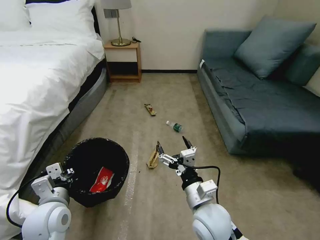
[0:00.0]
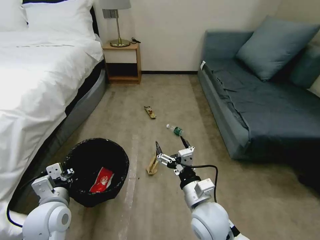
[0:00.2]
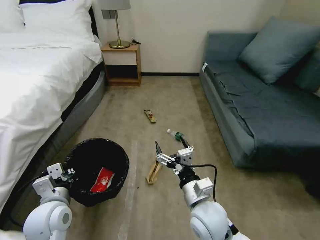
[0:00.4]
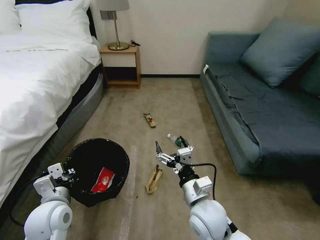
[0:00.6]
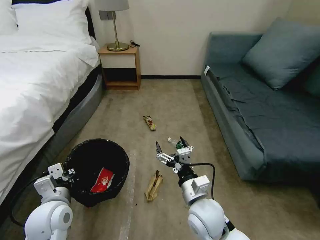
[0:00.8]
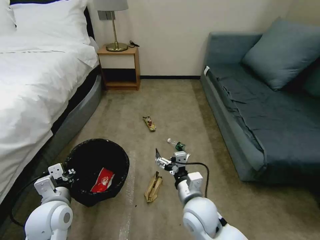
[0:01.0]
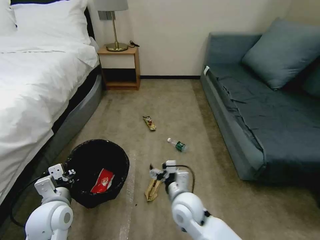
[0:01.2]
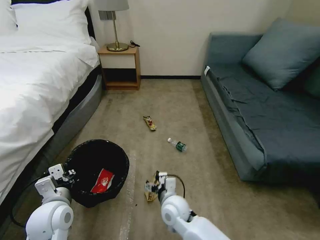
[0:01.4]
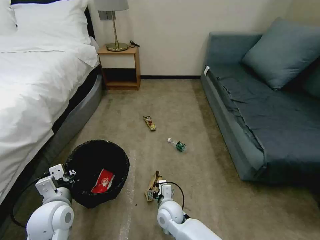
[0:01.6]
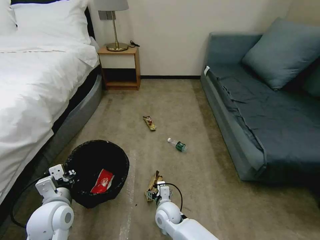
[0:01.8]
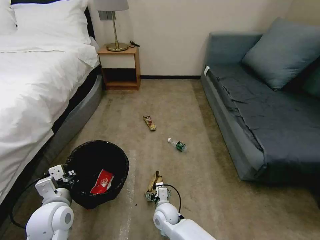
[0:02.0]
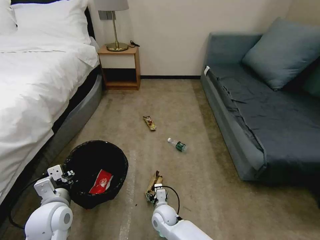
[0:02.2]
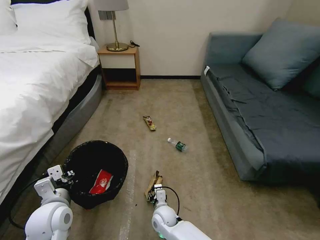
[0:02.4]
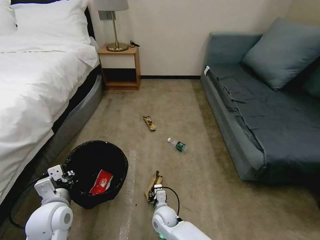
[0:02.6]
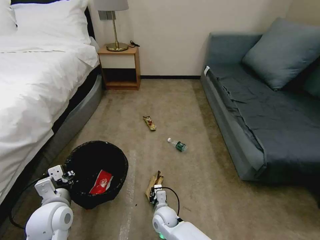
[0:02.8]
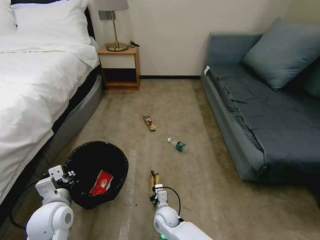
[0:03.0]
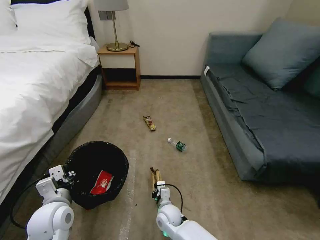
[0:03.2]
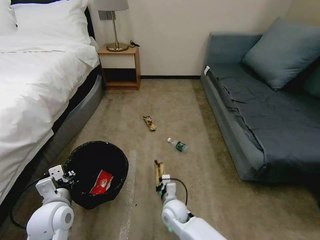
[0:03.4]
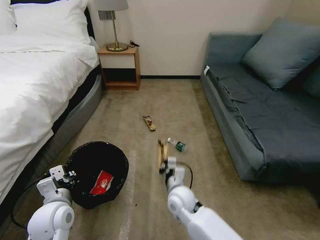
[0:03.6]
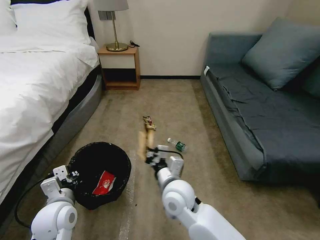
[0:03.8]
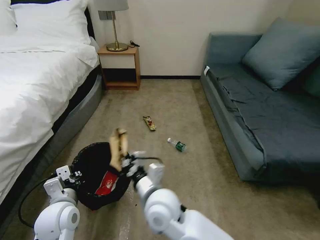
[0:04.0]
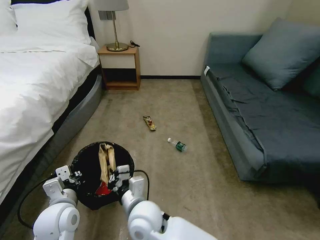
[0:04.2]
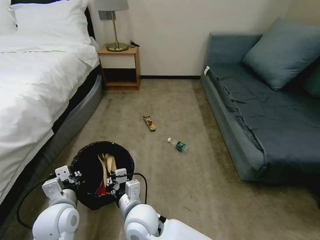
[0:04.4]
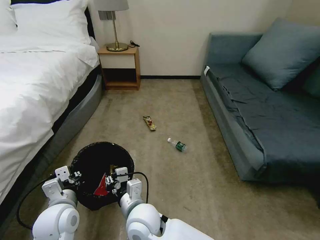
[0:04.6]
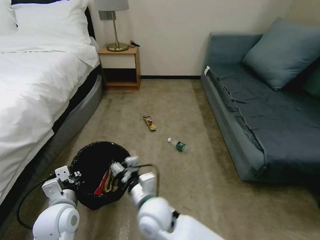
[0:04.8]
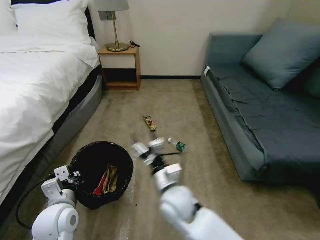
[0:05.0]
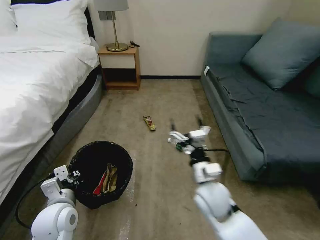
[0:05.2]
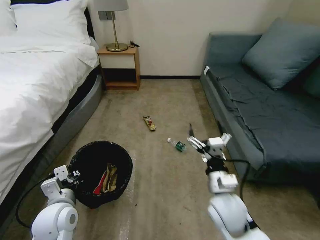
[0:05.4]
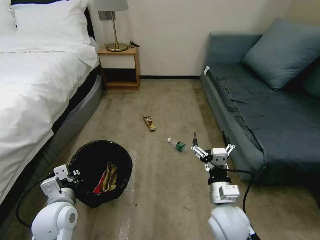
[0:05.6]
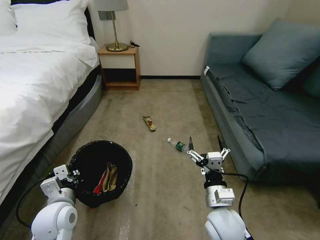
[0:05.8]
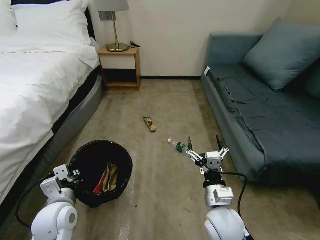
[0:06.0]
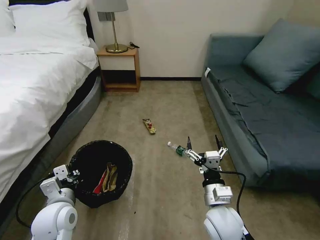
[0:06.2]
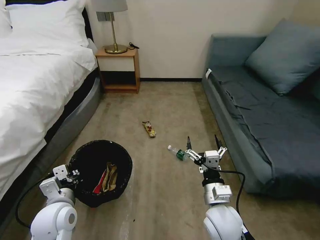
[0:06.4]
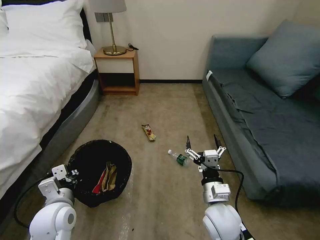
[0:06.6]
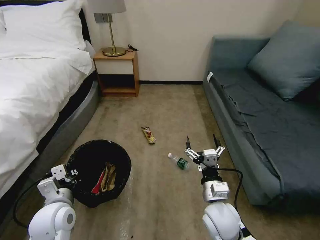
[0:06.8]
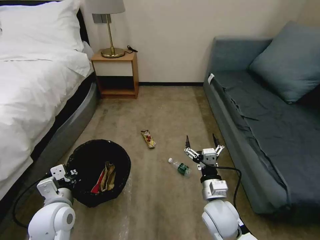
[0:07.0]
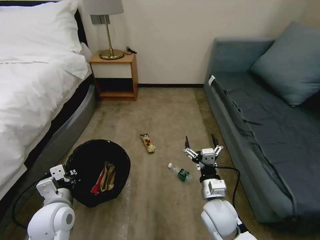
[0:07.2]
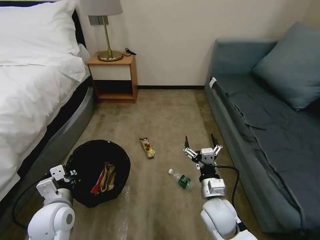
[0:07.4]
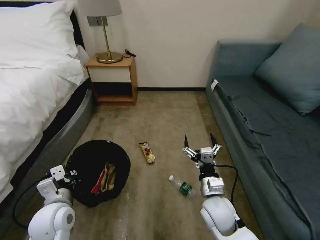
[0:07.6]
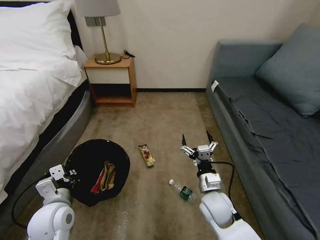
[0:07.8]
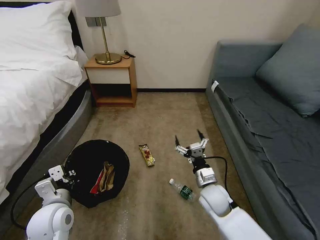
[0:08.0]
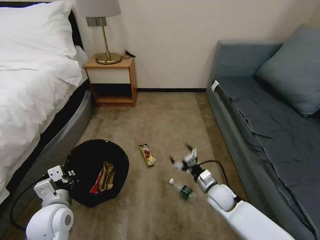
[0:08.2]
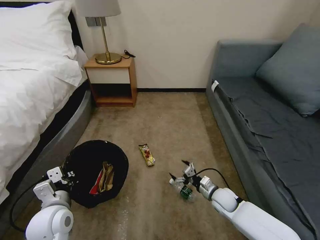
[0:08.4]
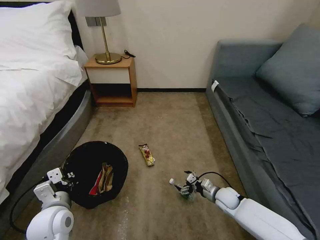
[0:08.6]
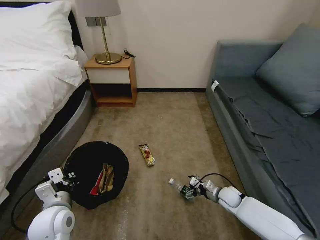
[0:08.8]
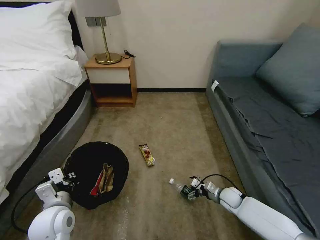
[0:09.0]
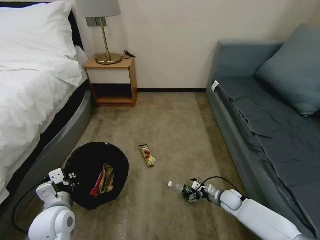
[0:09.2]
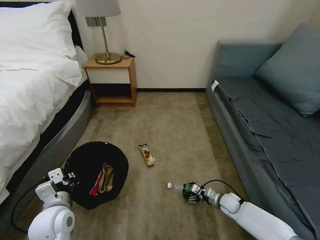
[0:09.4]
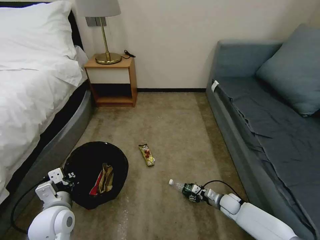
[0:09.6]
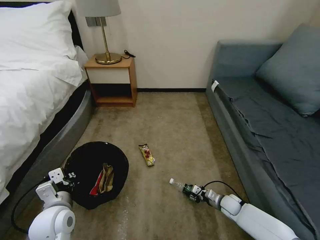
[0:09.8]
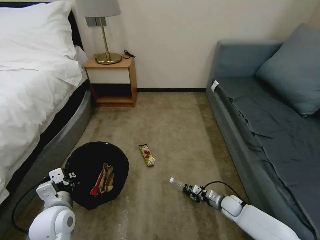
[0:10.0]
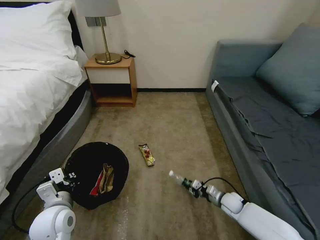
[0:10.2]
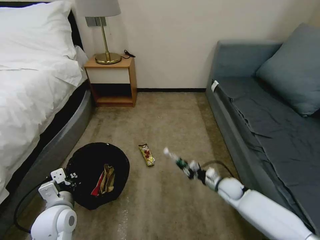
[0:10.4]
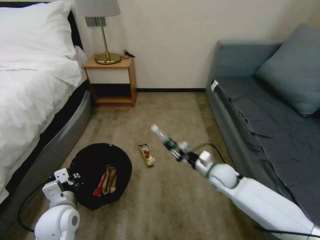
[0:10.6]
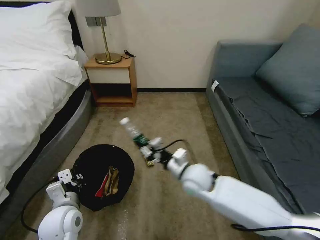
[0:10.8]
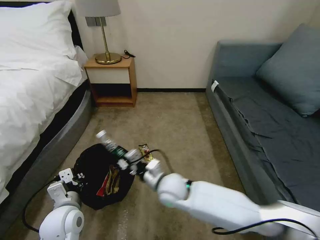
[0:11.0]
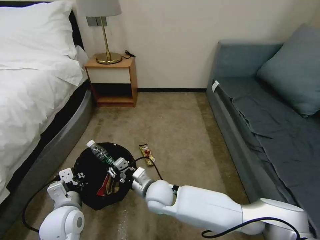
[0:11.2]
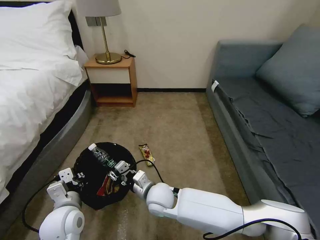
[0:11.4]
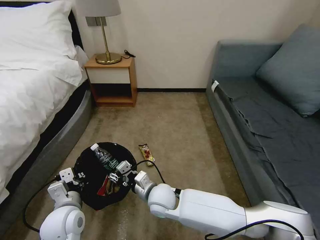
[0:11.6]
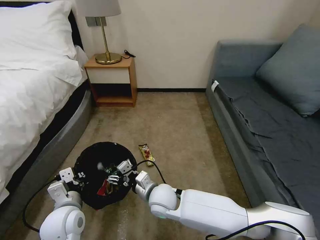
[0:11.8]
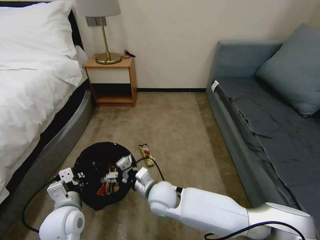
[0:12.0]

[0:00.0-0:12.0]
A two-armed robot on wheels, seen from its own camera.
Task of the whole recording: Pick up the trash bin, then pick up the garbage on the floor and place it into the trash bin.
0:00.0 to 0:01.6: The right gripper moves downward and to the left, some 20 cm.
0:01.6 to 0:03.0: The right gripper is displaced downward by some 5 cm, and closes.
0:03.0 to 0:04.4: The right gripper travels upward and to the left by roughly 20 cm.
0:04.4 to 0:06.0: The right gripper is displaced to the right by approximately 25 cm, and opens its fingers.
0:07.6 to 0:09.0: The right gripper shifts about 25 cm downward, to the right and forward.
0:09.0 to 0:10.4: The right gripper moves upward, about 5 cm, and closes.
0:10.4 to 0:12.0: The right gripper travels to the left and upward by some 30 cm, and opens up.

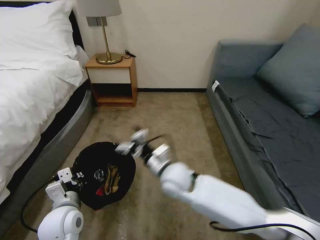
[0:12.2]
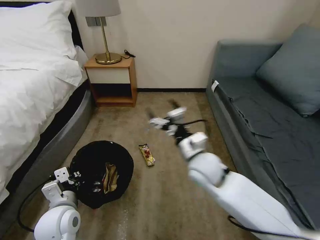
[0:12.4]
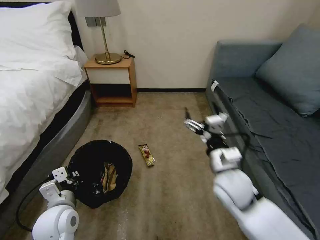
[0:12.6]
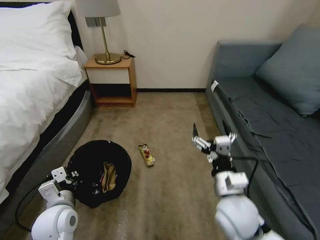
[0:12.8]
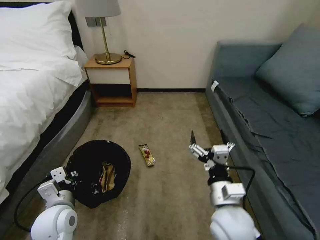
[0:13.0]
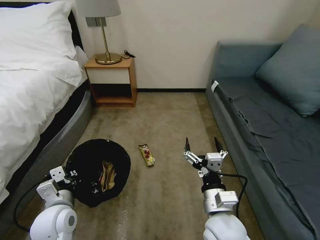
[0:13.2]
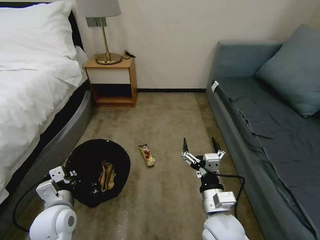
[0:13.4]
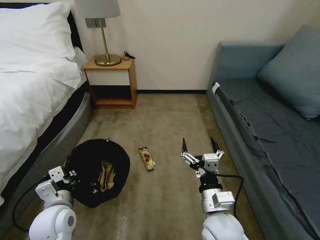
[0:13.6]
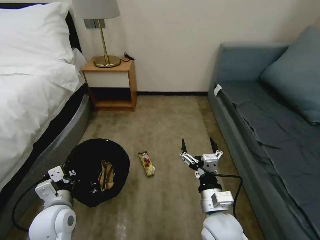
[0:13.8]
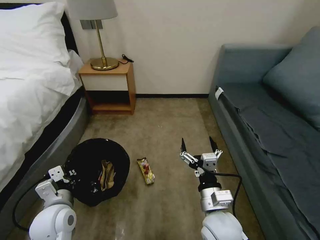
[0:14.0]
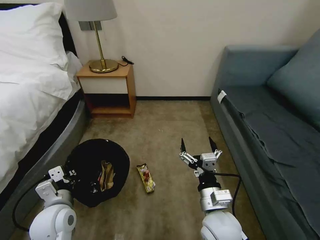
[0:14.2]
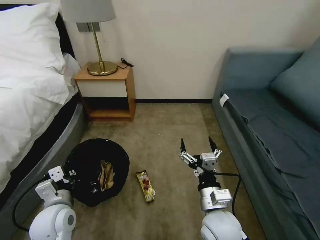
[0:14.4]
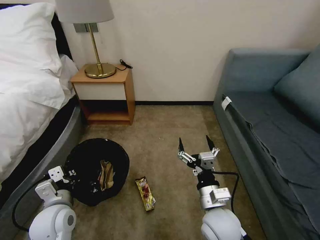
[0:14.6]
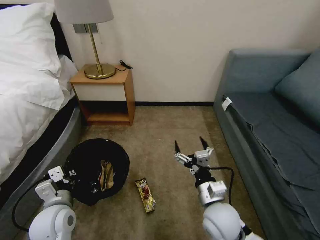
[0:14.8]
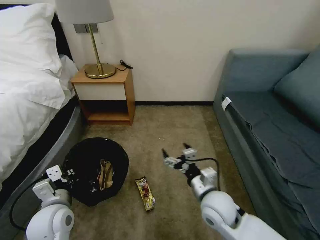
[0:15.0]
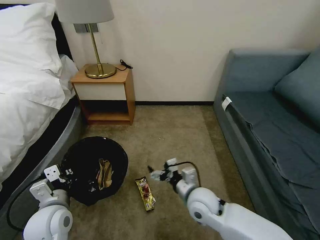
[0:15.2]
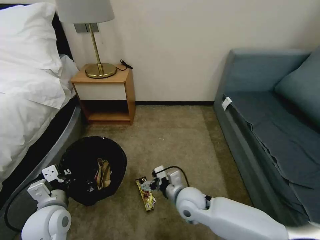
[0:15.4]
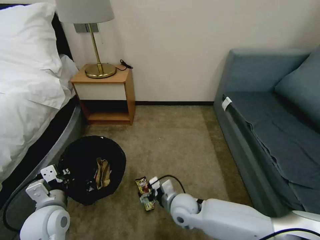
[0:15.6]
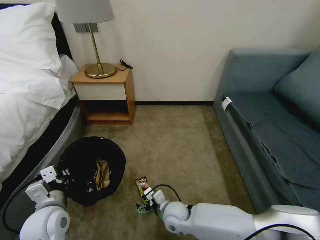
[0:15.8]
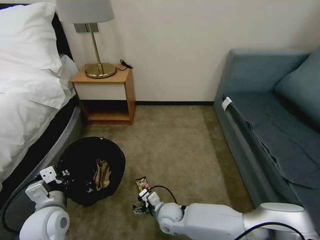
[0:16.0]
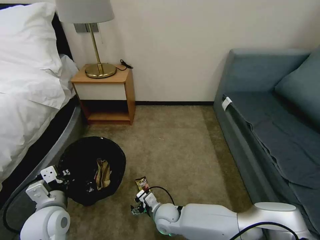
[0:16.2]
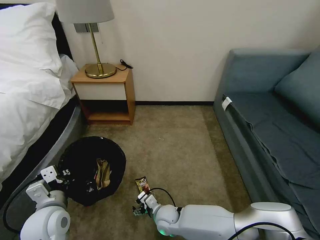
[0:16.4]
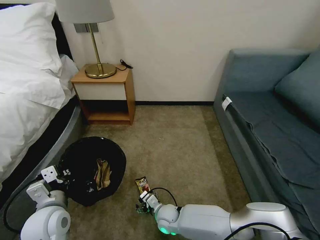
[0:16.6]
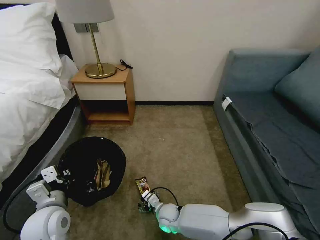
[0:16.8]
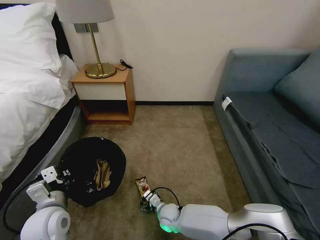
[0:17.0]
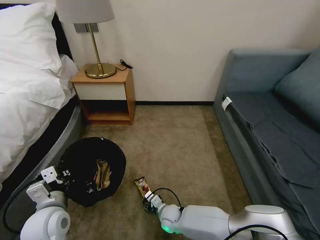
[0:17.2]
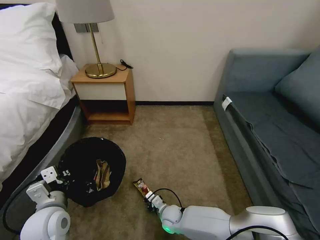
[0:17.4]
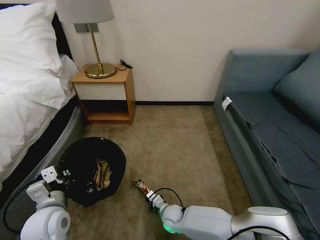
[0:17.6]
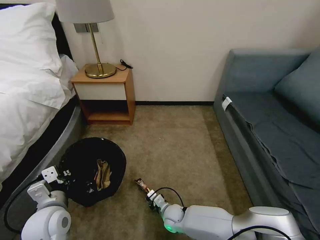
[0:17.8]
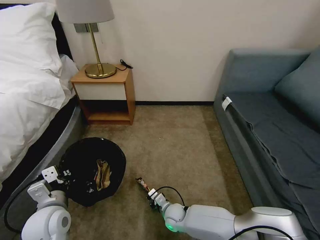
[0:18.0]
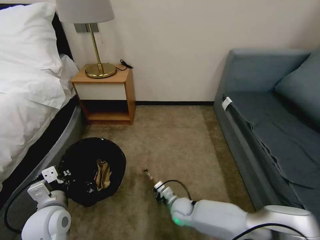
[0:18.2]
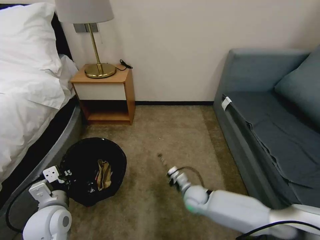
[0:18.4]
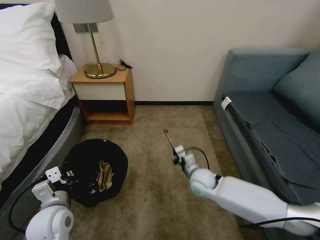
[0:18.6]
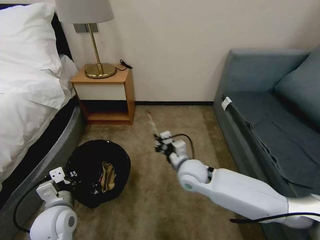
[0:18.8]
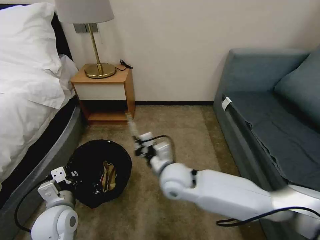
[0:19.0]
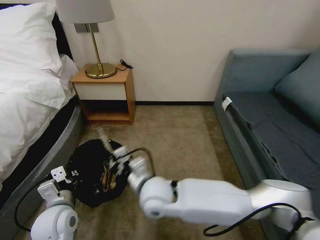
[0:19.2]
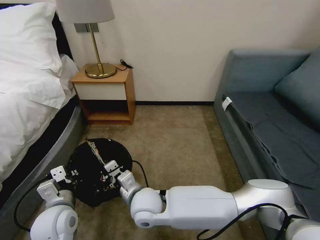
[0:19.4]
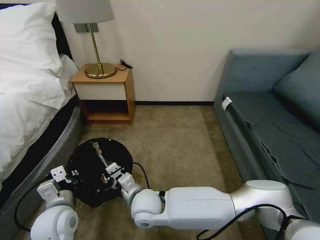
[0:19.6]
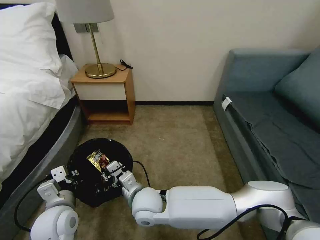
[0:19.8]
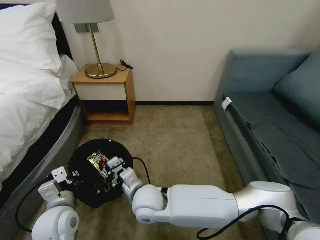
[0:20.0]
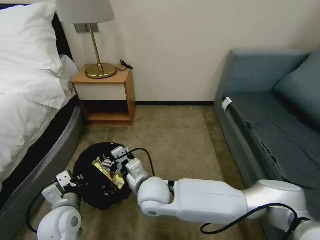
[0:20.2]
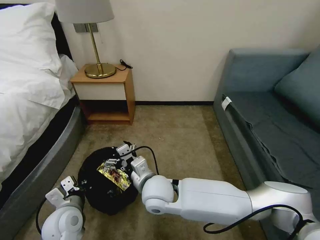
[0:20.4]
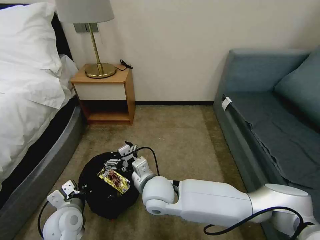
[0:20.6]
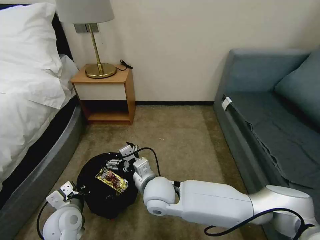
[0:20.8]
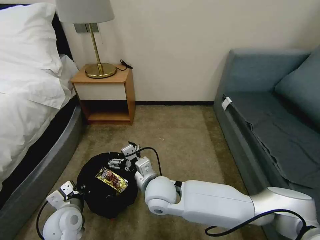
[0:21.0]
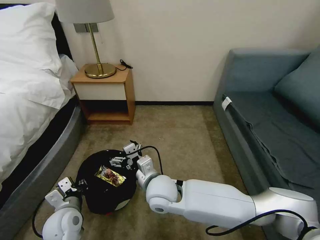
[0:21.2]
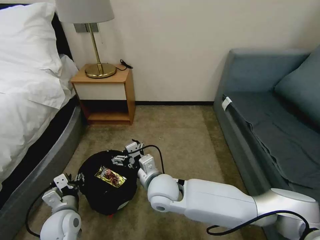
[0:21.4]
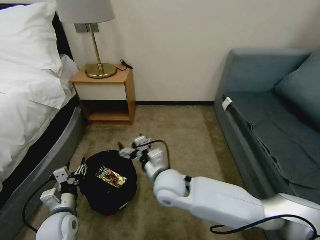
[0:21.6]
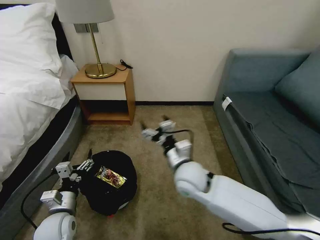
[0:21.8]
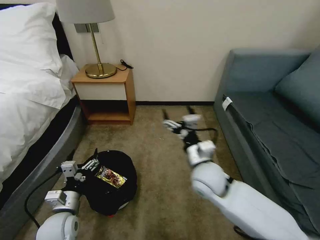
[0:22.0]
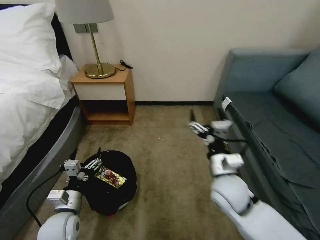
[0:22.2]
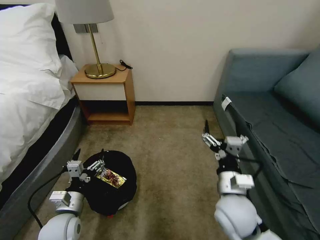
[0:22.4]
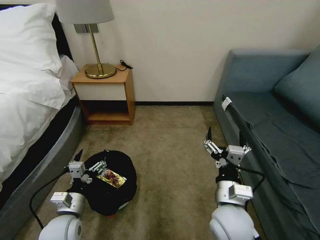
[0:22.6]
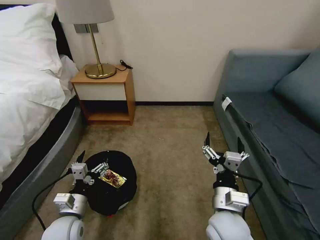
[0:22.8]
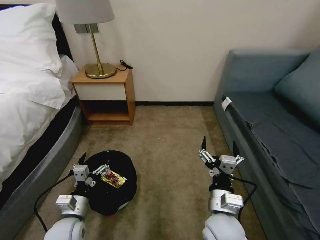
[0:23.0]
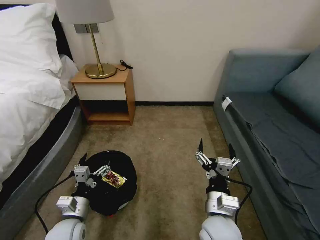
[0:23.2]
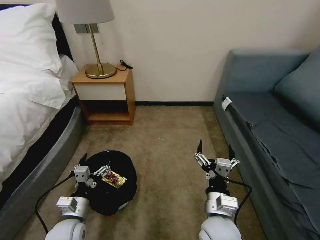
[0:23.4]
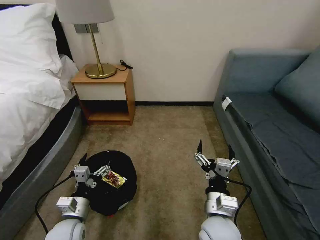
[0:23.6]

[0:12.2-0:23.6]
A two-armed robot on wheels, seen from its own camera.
Task of the whole recording: Pick up the trash bin, then pick up the garbage on the floor and place it into the trash bin.
0:12.2 to 0:13.6: The right gripper heads backward and to the right, covering about 20 cm.
0:13.6 to 0:15.0: The right gripper heads forward, covering roughly 5 cm.
0:15.0 to 0:16.4: The right gripper goes approximately 25 cm downward and to the left.
0:16.4 to 0:17.8: The right gripper changes place by about 5 cm, and closes.
0:17.8 to 0:19.4: The right gripper travels upward and to the left by roughly 25 cm.
0:19.4 to 0:20.8: The right gripper shifts by roughly 5 cm, and opens its fingers. The left gripper moves downward, some 5 cm.
0:20.8 to 0:22.2: The left gripper opens, while the right gripper moves to the right, approximately 20 cm.
0:22.2 to 0:23.6: The right gripper is displaced backward and downward by approximately 10 cm.
